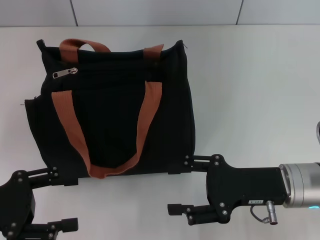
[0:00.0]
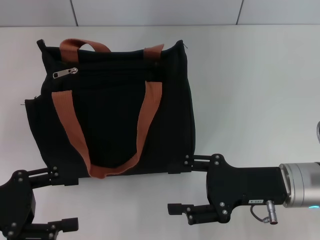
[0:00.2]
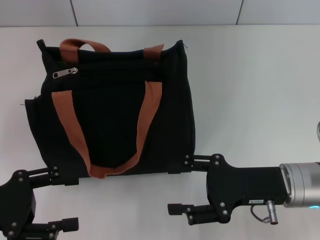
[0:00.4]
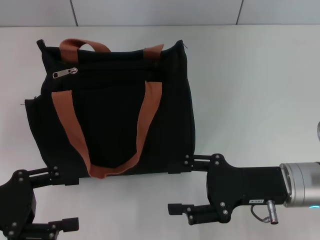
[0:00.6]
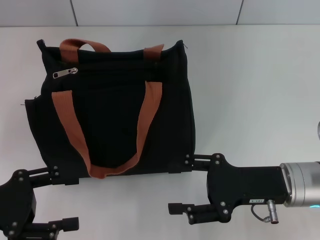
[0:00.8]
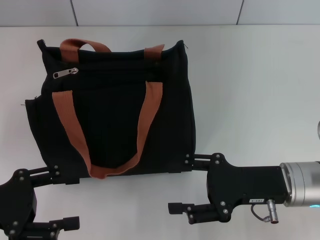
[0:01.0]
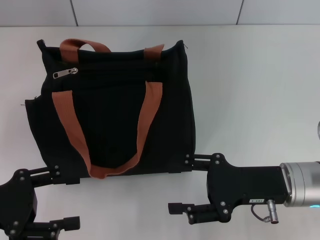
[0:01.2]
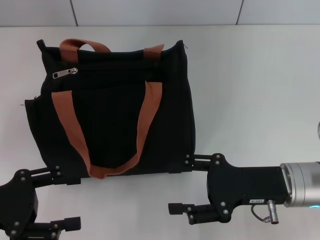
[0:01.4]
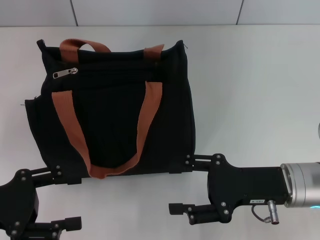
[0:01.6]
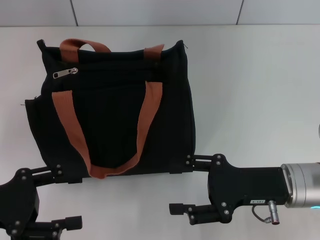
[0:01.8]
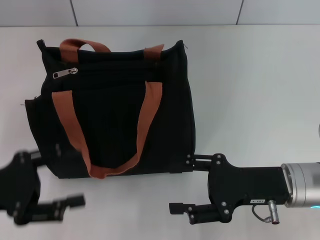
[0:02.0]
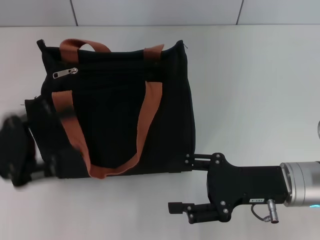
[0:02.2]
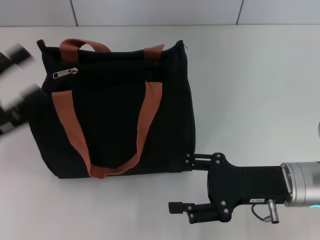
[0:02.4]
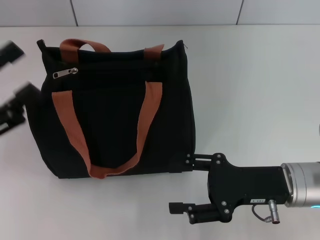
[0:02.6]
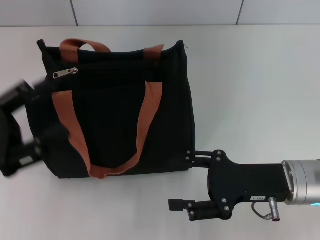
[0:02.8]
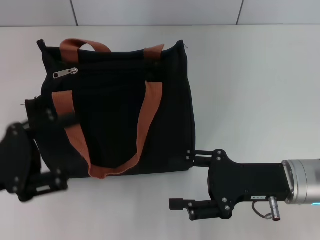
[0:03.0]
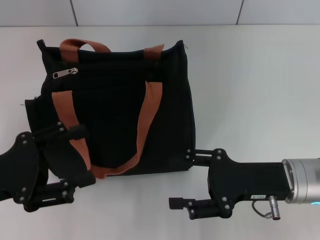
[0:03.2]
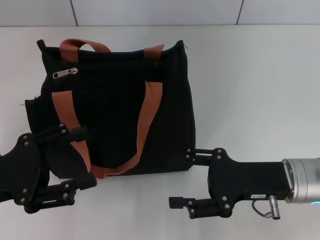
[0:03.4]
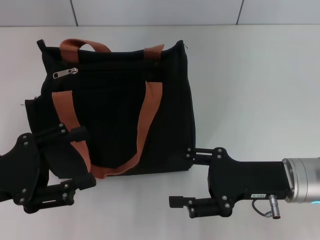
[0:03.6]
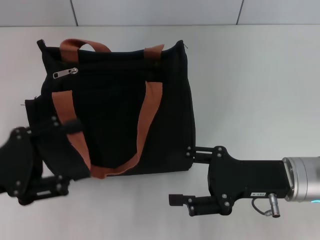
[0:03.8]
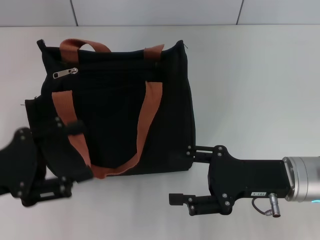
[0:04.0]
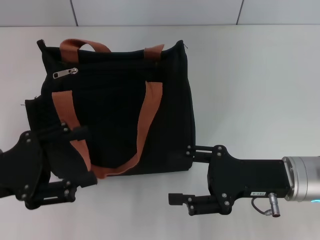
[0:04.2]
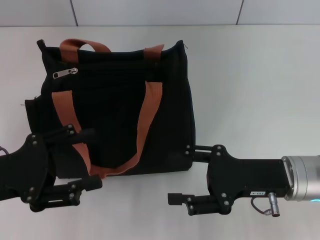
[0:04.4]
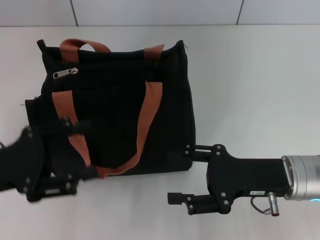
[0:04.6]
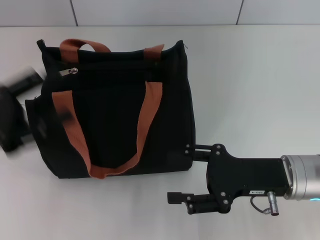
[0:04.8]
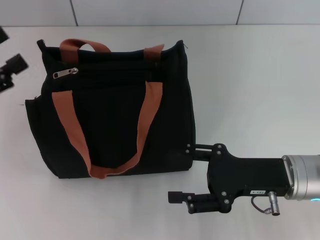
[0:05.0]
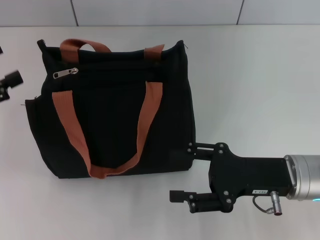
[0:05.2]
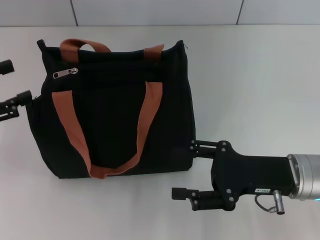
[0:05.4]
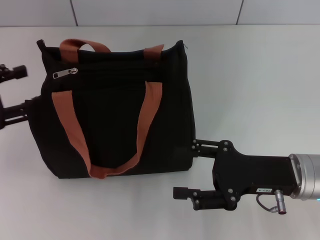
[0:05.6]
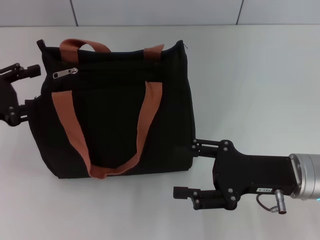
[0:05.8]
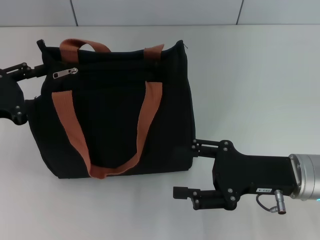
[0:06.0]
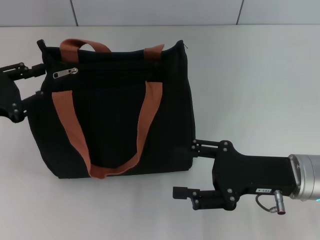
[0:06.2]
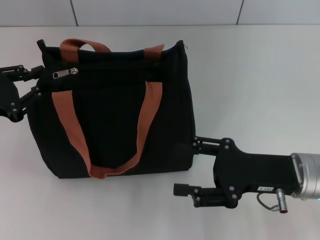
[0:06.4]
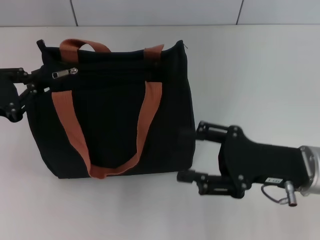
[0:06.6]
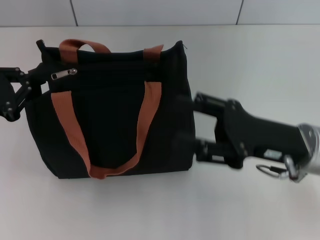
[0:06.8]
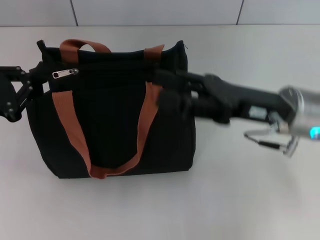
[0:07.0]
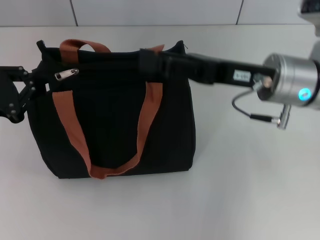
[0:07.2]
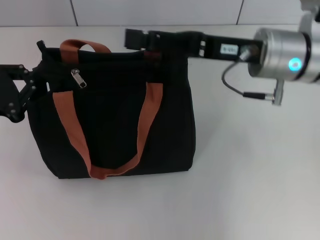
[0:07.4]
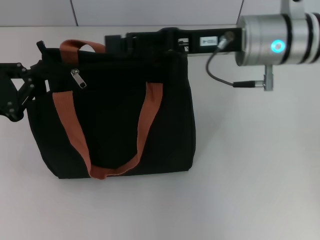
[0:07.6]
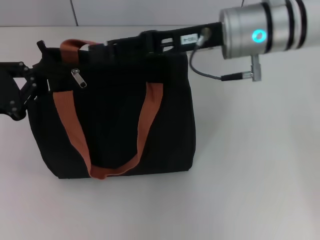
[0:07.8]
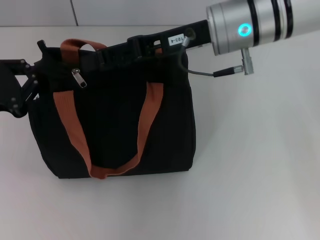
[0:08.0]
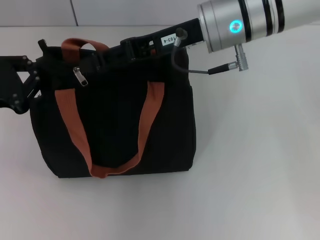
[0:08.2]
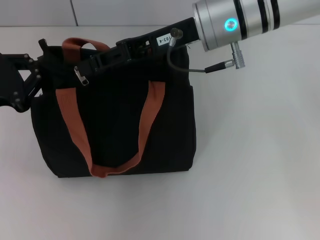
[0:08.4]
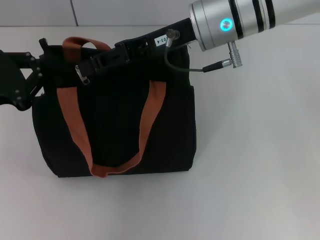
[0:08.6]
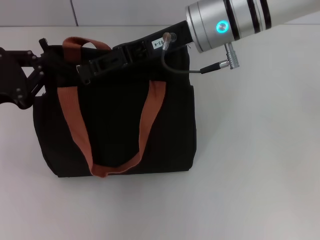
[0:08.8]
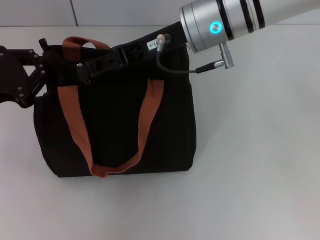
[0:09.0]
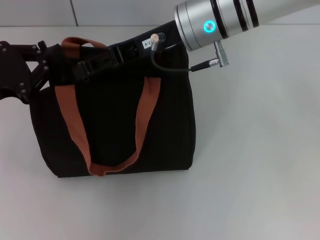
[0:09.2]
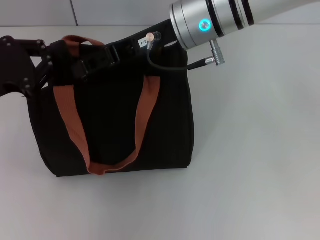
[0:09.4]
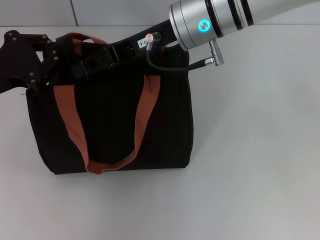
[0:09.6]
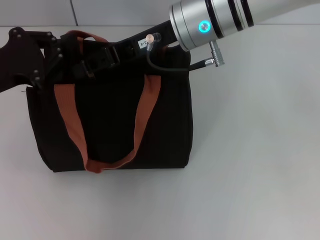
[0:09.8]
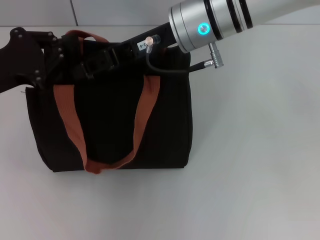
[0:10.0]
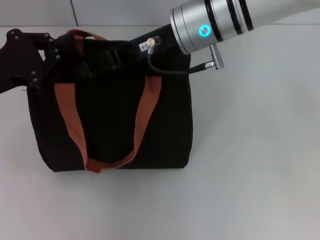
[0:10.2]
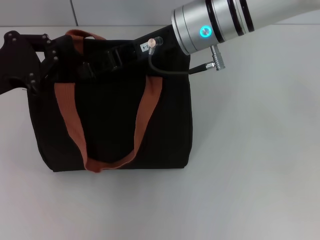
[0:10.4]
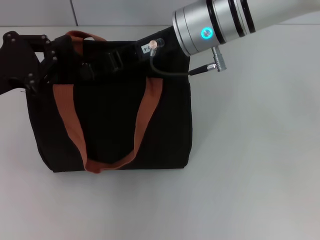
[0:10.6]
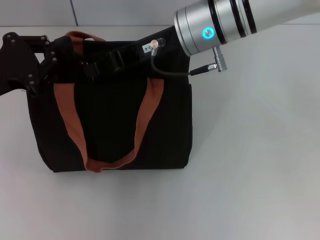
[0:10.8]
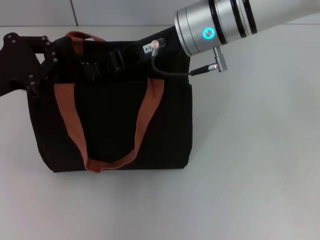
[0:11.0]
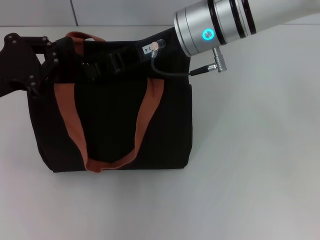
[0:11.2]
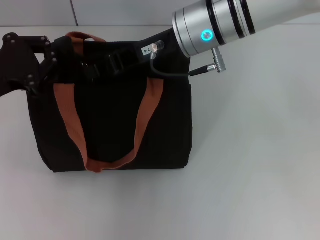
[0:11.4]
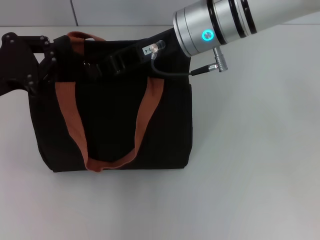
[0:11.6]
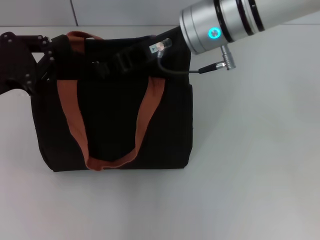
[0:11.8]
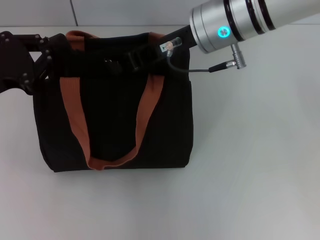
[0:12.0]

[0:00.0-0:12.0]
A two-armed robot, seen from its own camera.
0:00.0 to 0:01.6: Both grippers stay about where they are.
0:03.0 to 0:04.4: The grippers make only small movements.
0:04.4 to 0:06.0: The left gripper heads forward, covering about 5 cm.
0:06.0 to 0:07.6: The right gripper travels upward, forward and to the left by approximately 20 cm, while the left gripper closes its fingers.
0:07.6 to 0:09.0: The right gripper travels to the left by about 5 cm.
0:09.0 to 0:10.4: The grippers make only small movements.
0:10.4 to 0:12.0: The right gripper closes its fingers.

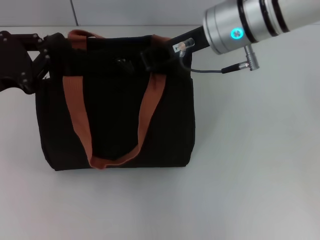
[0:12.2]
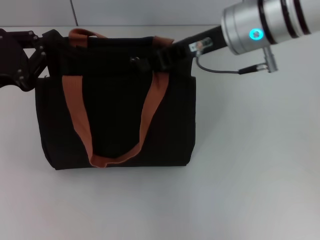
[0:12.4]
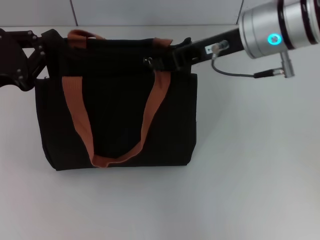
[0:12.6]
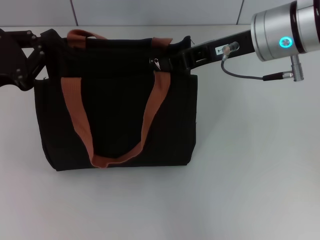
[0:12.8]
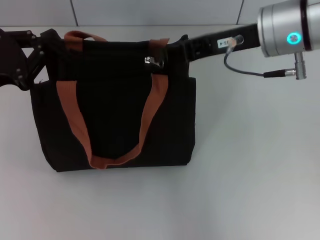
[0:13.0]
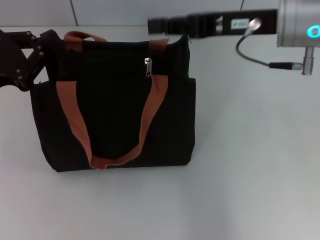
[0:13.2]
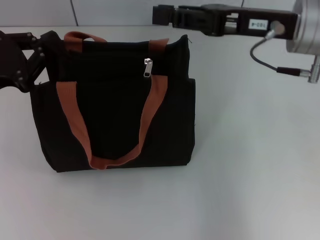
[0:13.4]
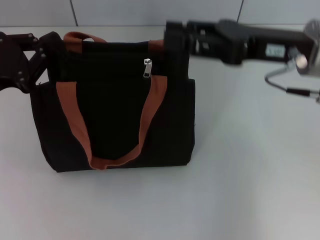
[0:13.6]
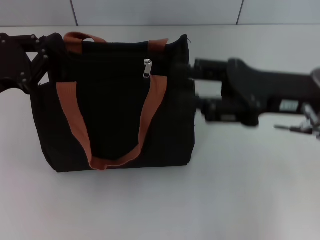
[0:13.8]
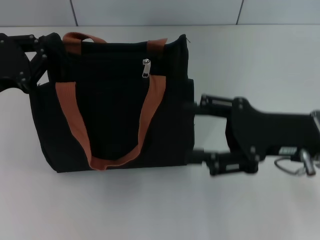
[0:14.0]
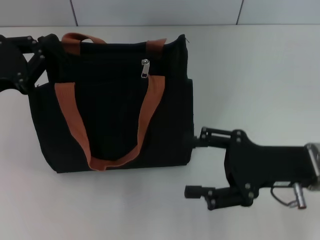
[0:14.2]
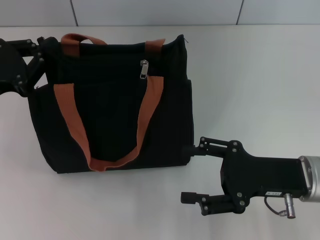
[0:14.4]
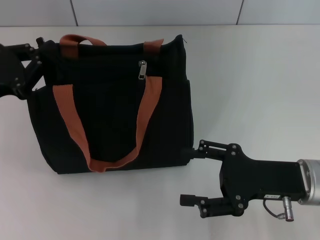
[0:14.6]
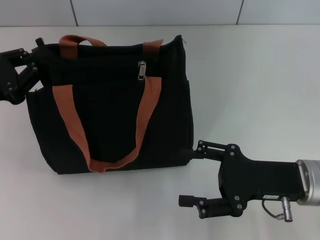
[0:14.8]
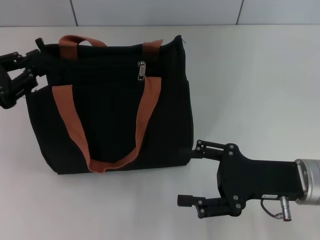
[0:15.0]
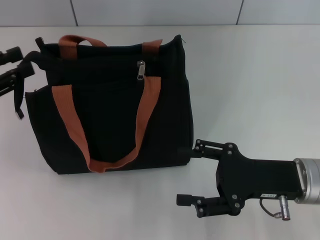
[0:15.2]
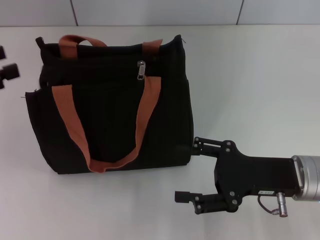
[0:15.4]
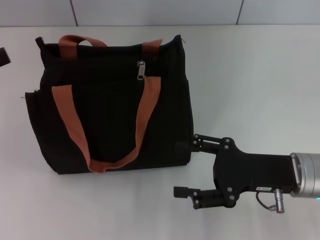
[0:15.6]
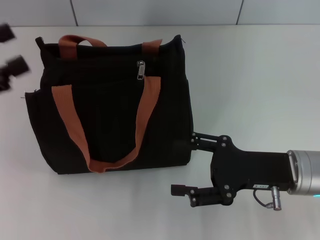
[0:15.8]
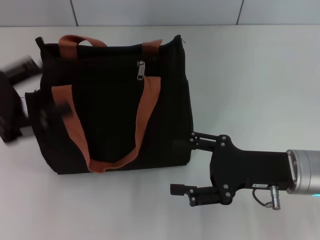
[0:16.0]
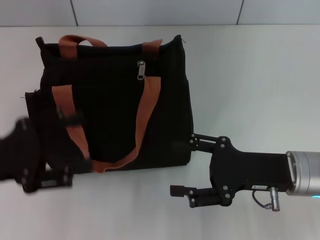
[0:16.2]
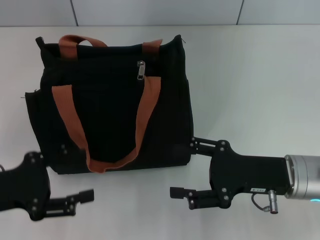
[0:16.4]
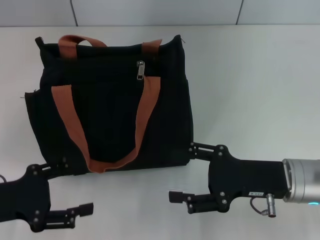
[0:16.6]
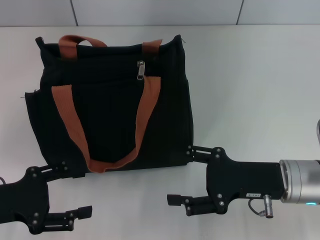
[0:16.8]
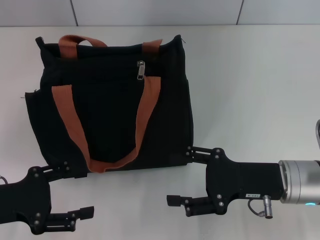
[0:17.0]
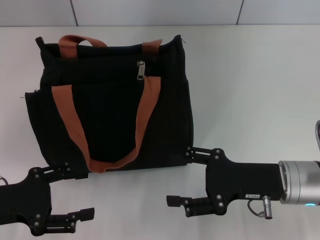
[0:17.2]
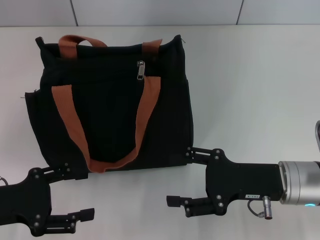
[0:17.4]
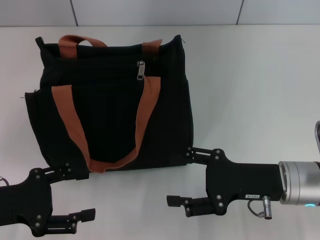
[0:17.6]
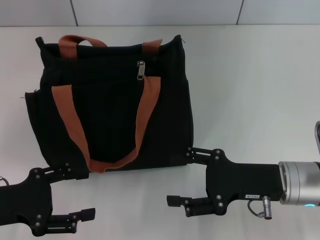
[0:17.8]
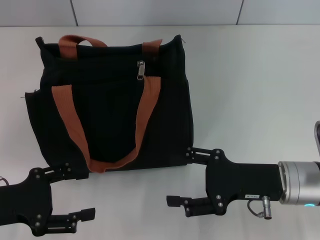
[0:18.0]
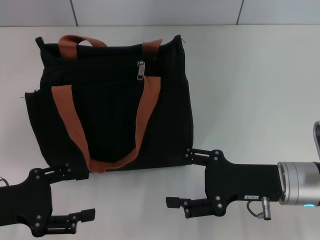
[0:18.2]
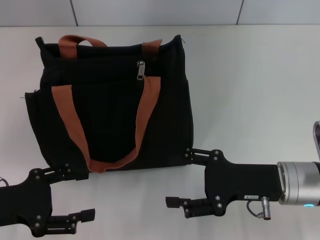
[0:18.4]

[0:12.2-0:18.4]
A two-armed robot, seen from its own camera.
Step, 0:13.2 to 0:15.2: Grab the zipper with your left hand.
0:12.2 to 0:13.8: The right gripper is displaced to the right, backward and downward by roughly 15 cm, and opens up.
0:13.8 to 0:15.4: The right gripper goes approximately 10 cm downward and backward, while the left gripper shifts roughly 5 cm to the left, and opens its fingers.
0:15.4 to 0:16.8: The left gripper heads downward, backward and to the right, covering approximately 15 cm, and opens up.
0:16.8 to 0:18.4: Both grippers stay put.
